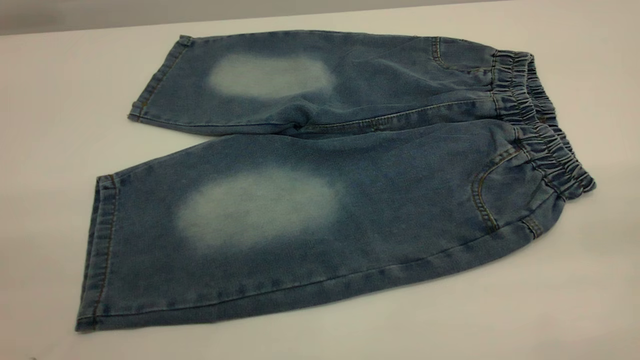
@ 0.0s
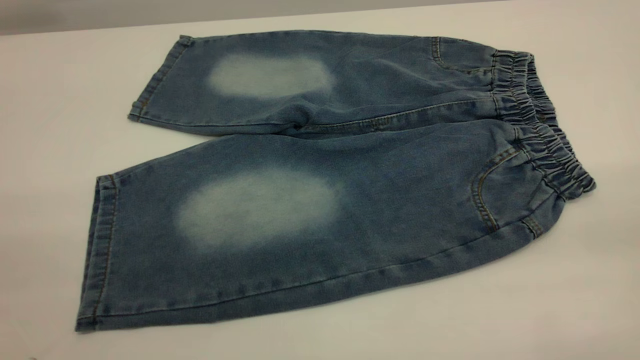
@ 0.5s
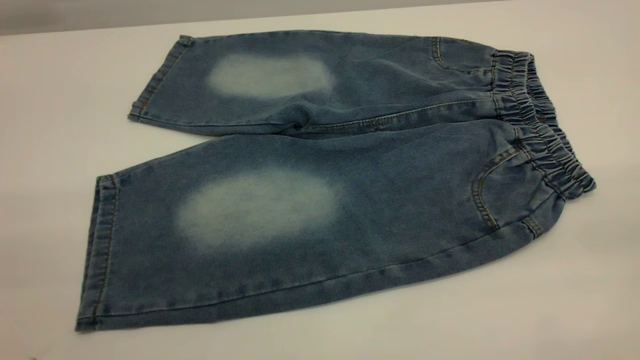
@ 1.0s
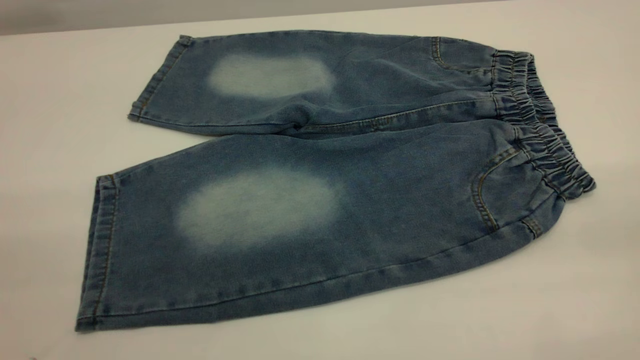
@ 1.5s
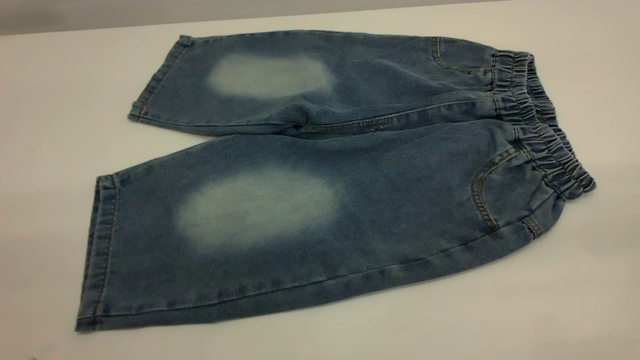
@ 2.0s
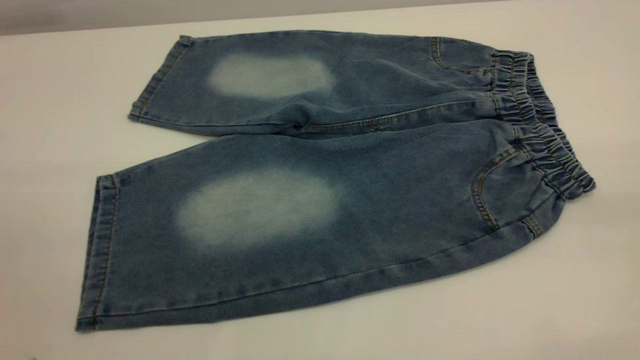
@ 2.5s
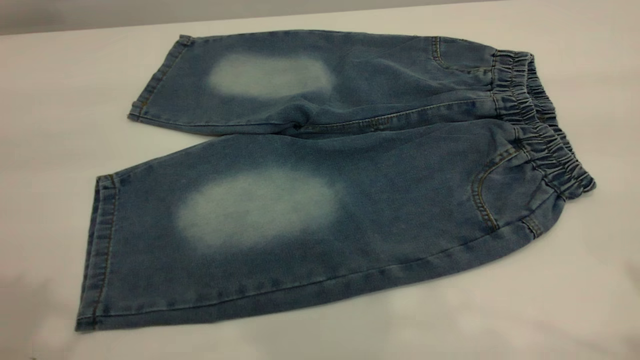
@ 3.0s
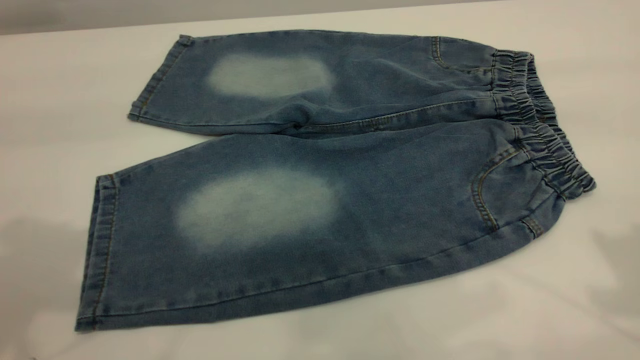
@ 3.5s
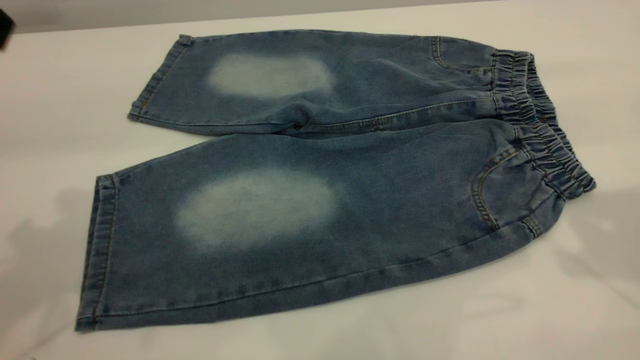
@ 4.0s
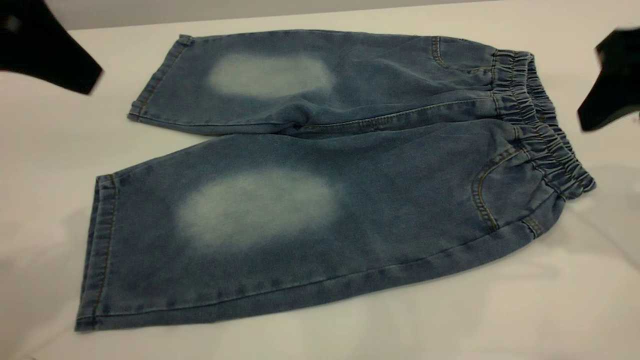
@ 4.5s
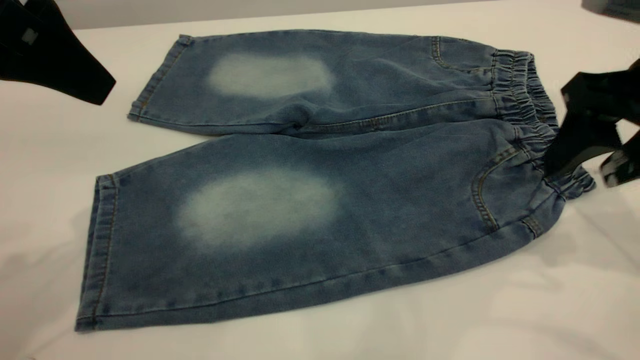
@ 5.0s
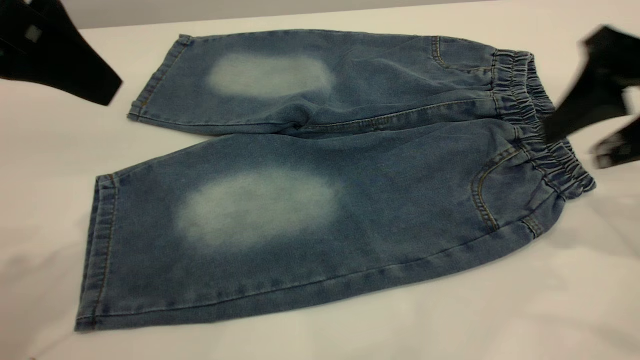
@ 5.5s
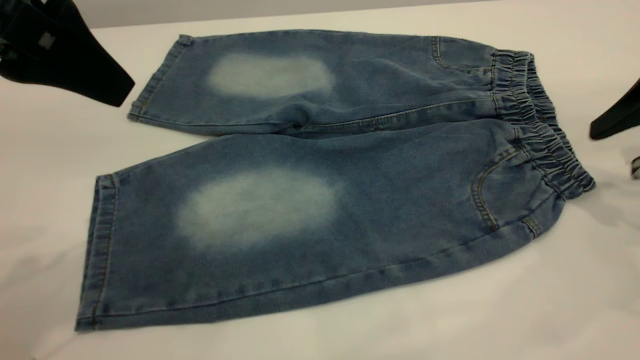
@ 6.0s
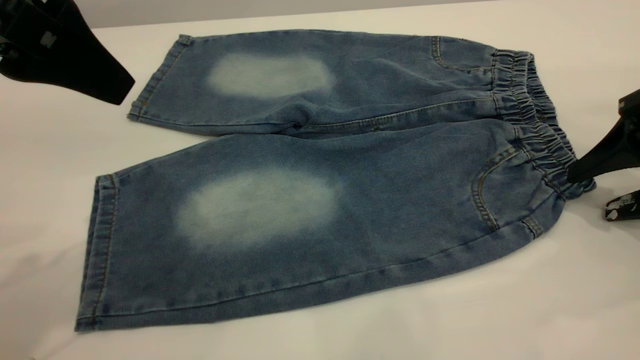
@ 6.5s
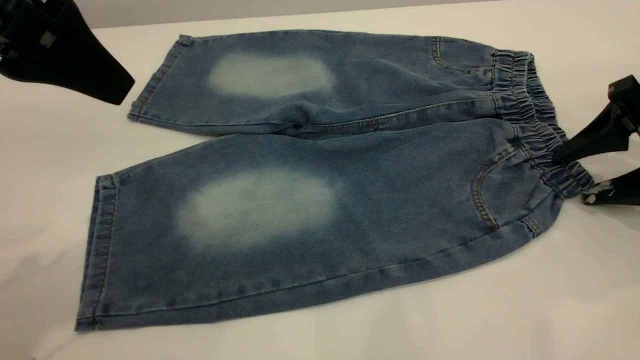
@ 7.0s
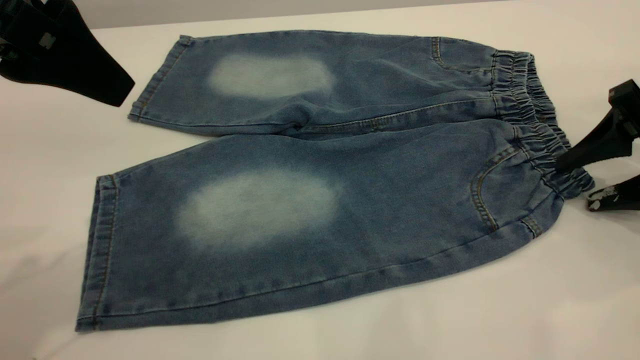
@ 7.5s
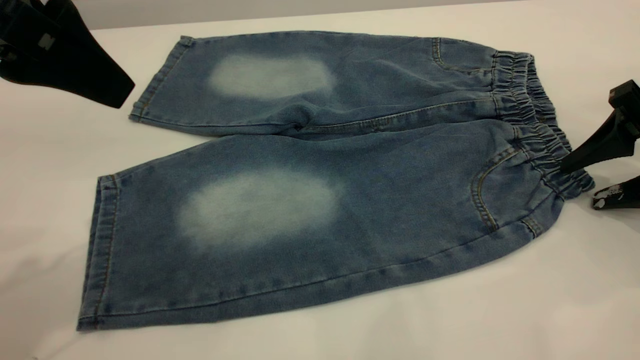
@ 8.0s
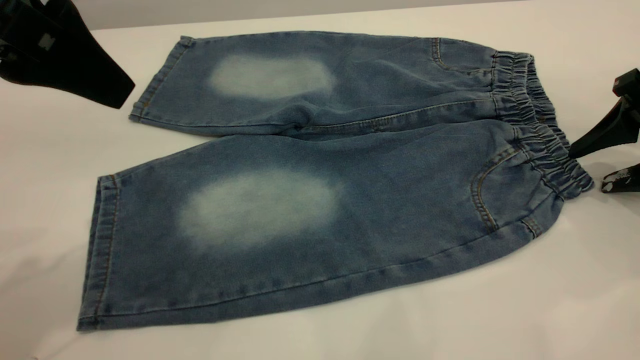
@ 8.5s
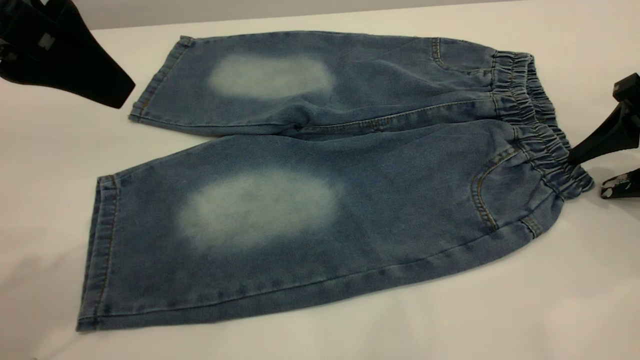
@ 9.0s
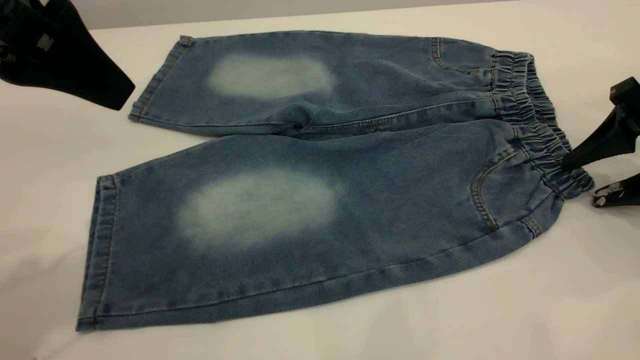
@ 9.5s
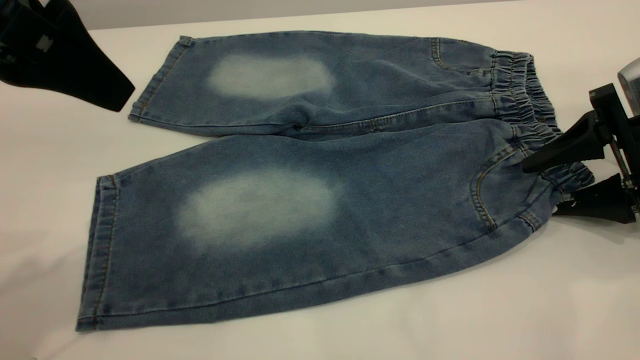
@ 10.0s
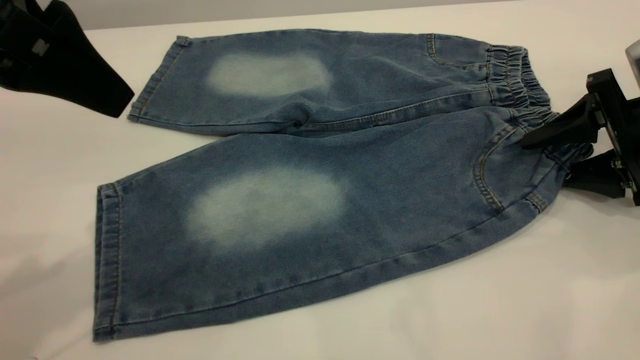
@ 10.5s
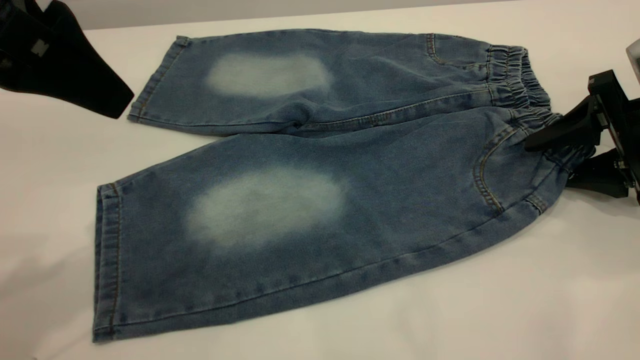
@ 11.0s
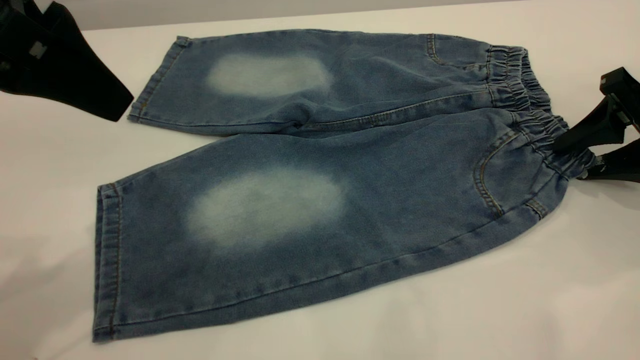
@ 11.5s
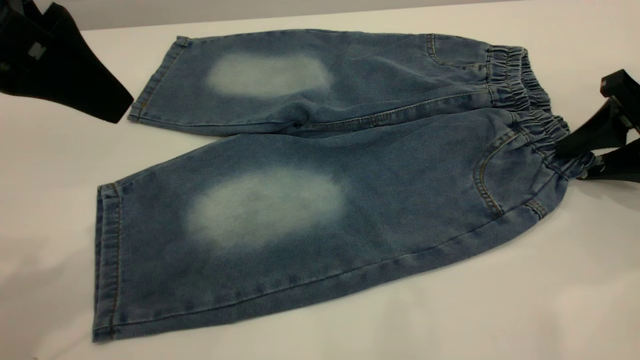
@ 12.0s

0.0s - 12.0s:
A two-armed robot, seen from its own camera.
0.0s - 2.0s: Both grippers stay put.
4.0s - 6.0s: The right gripper travels downward and to the right by about 15 cm. The left gripper heads to the right, covering some 5 cm.
6.0s - 8.0s: The right gripper shifts approximately 5 cm downward.
8.0s - 10.0s: The grippers move only a little.

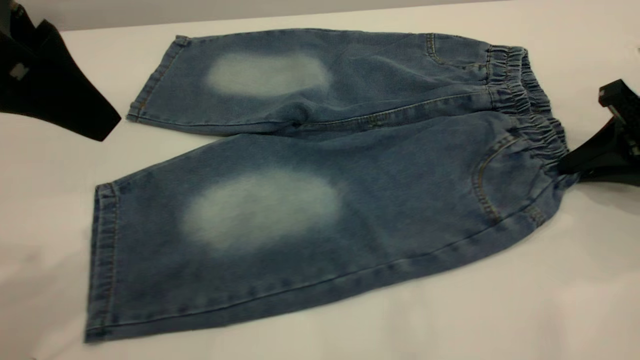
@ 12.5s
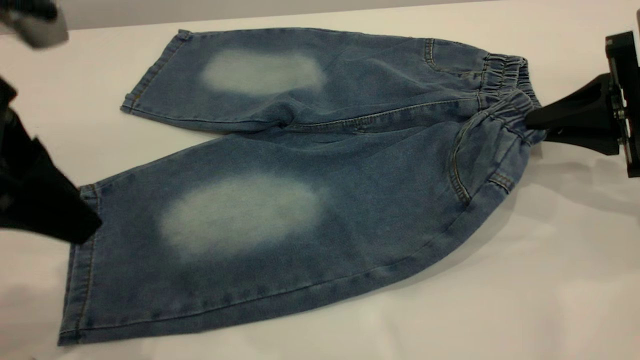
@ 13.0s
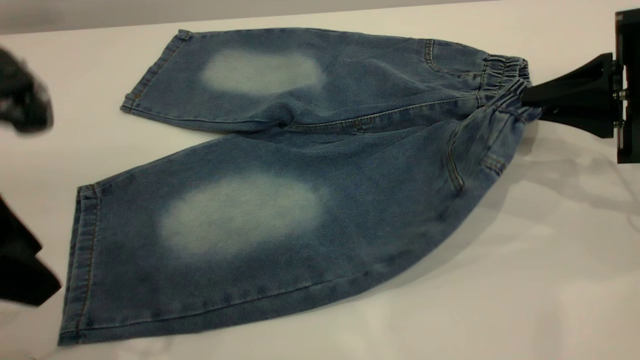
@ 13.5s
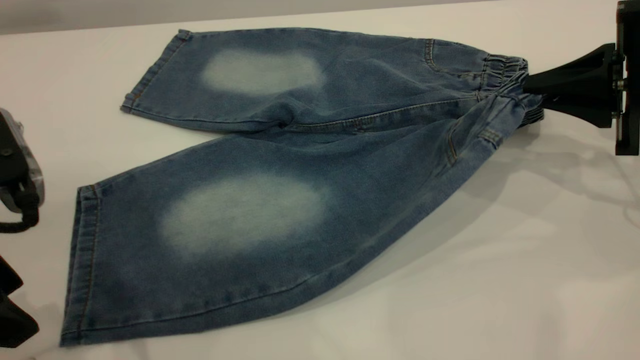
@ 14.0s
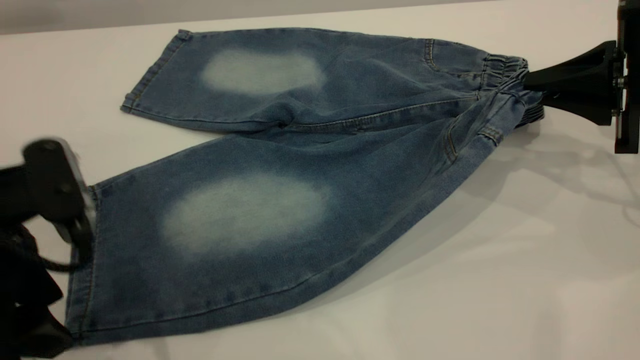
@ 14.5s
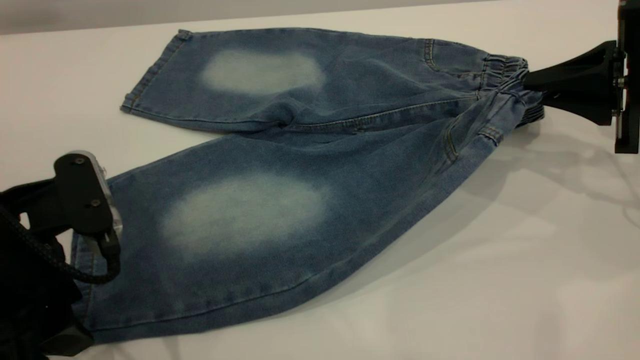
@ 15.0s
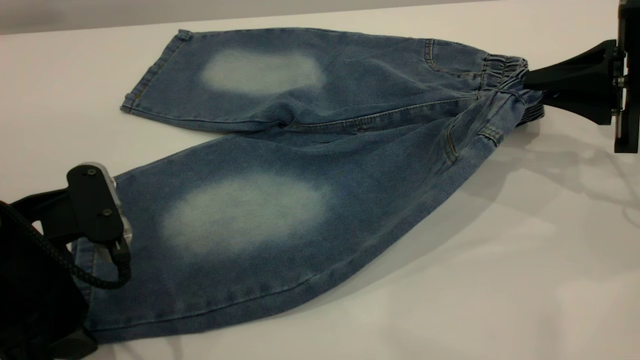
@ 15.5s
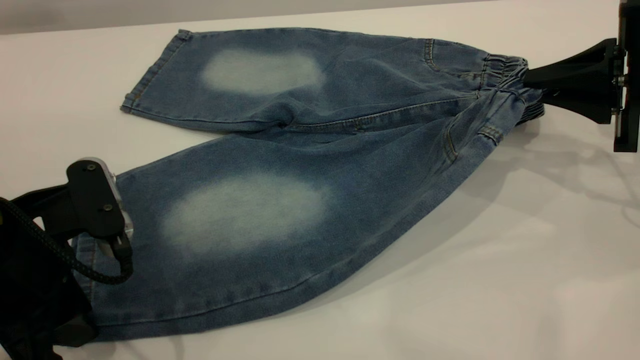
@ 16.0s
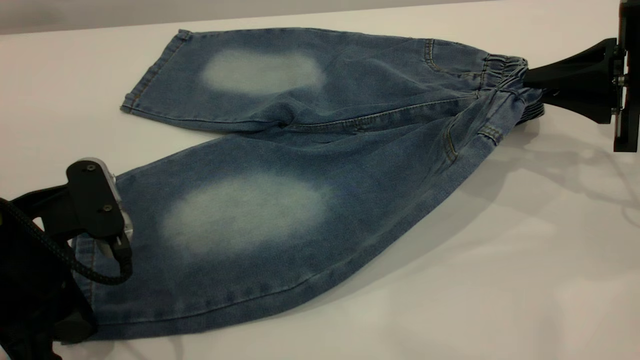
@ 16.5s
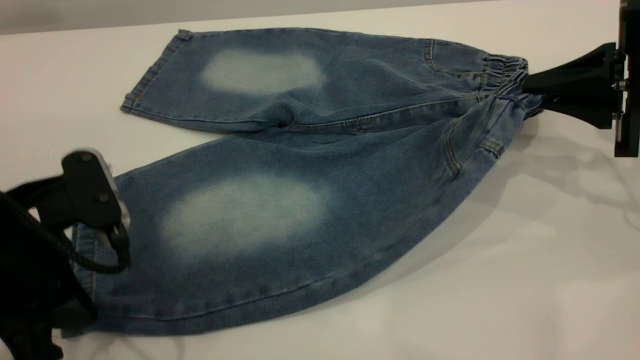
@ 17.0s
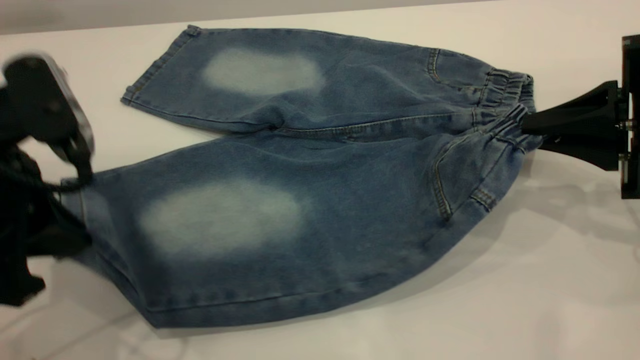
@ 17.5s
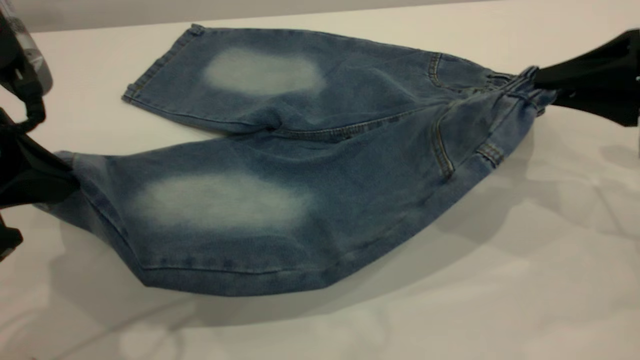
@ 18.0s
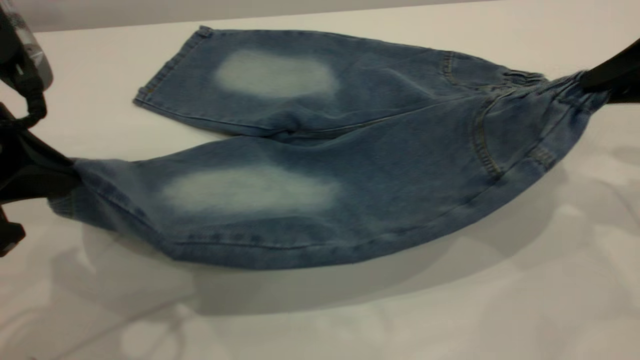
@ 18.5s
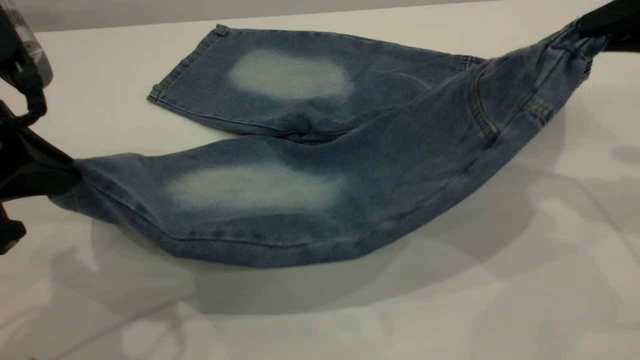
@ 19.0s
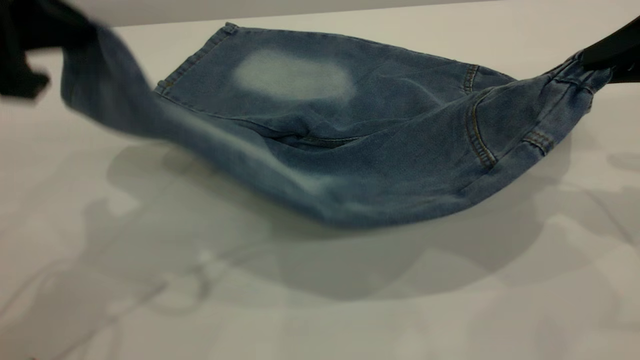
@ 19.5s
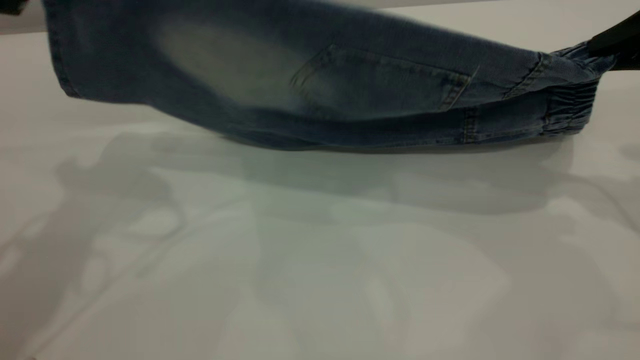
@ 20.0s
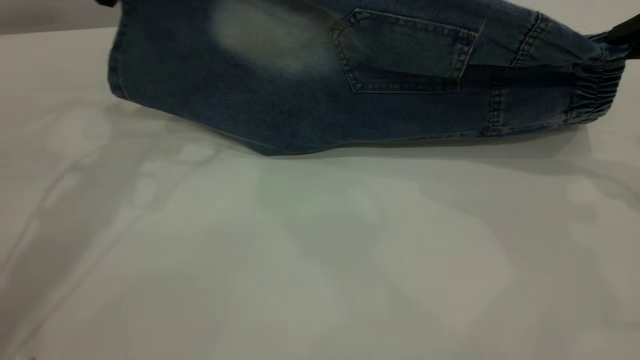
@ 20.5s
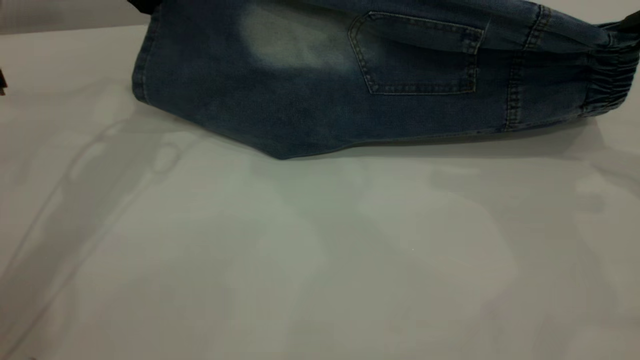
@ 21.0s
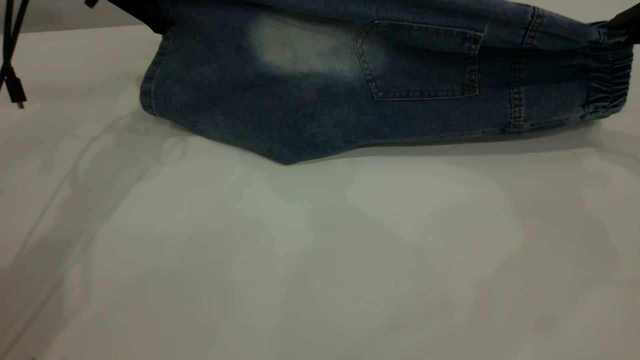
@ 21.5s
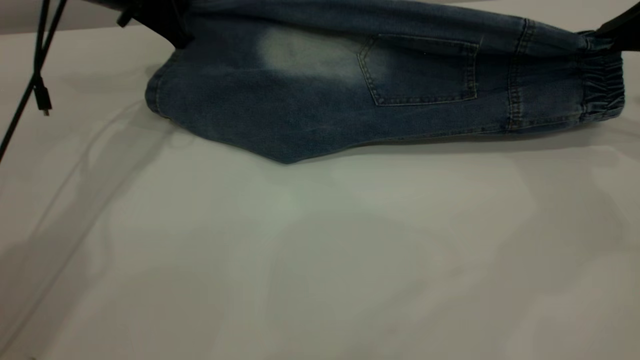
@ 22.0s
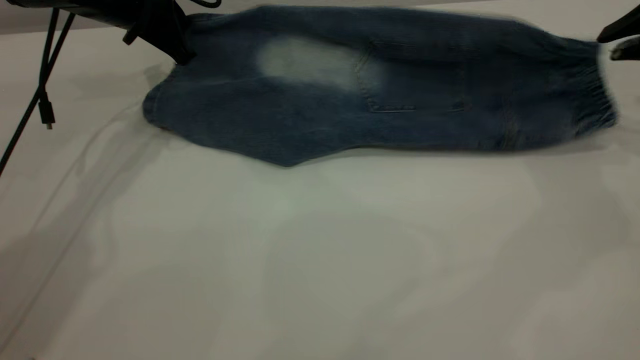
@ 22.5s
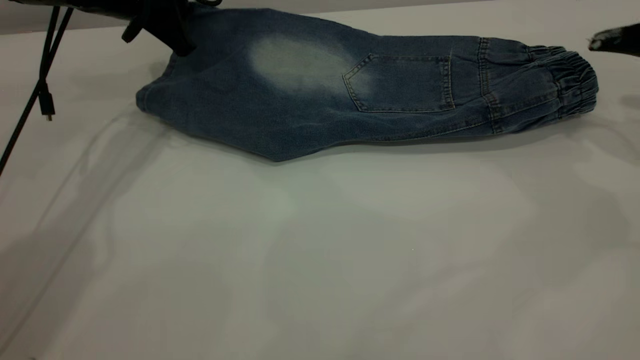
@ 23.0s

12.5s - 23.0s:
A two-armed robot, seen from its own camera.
Step, 12.5s - 23.0s: Fold the bottom of the pants upward.
12.5s - 14.5s: The left gripper moves downward and backward, approximately 15 cm.
14.5s - 16.5s: The left gripper closes.
16.5s - 19.0s: The grippers both shift upward by approximately 10 cm.
19.0s - 21.0s: The left gripper goes approximately 25 cm forward.
21.0s - 23.0s: The left gripper heads downward, covering approximately 5 cm. Meanwhile the right gripper goes about 5 cm forward, and opens.
